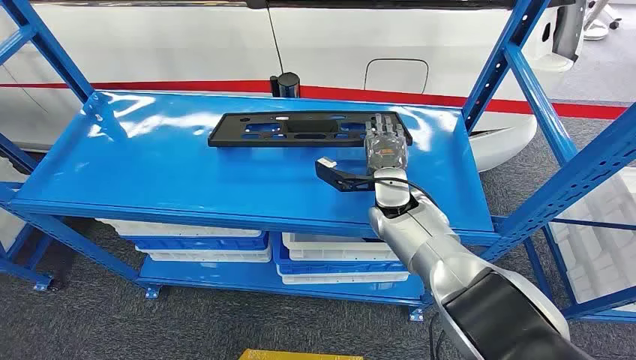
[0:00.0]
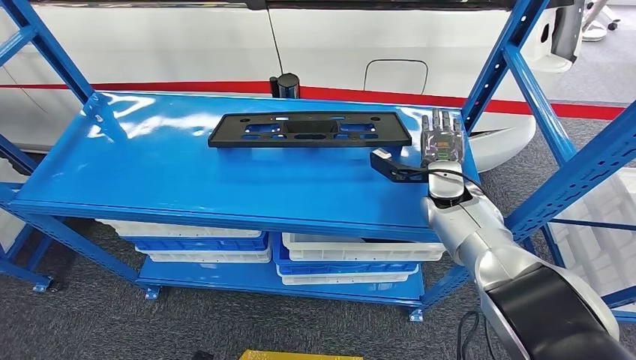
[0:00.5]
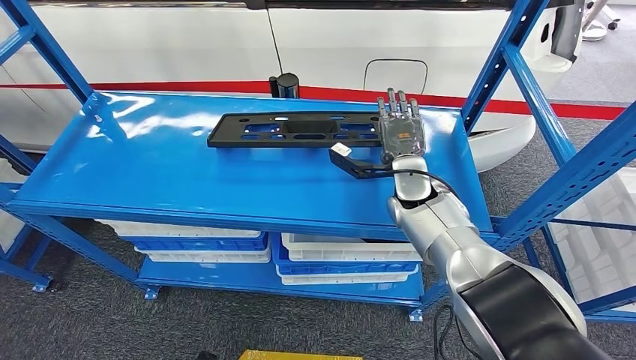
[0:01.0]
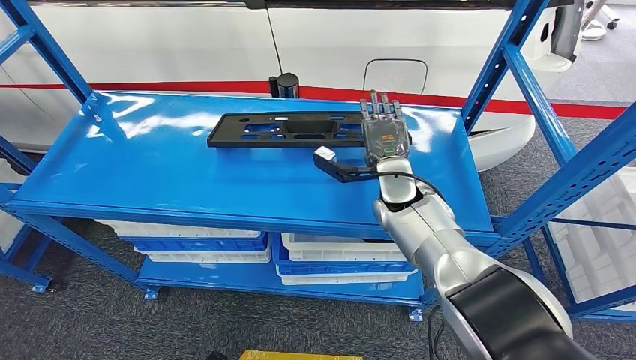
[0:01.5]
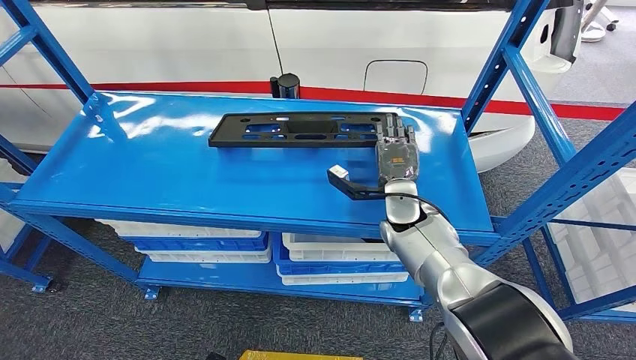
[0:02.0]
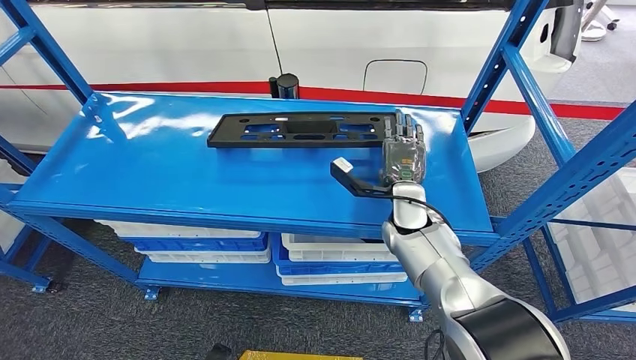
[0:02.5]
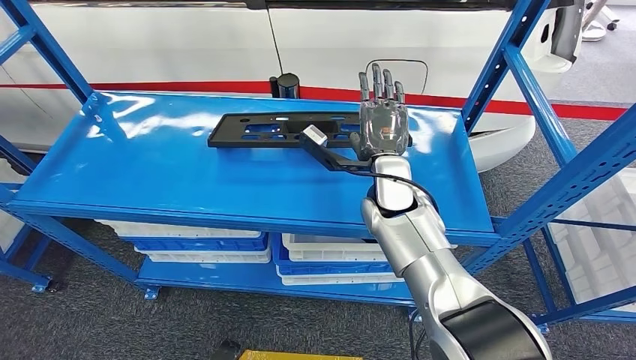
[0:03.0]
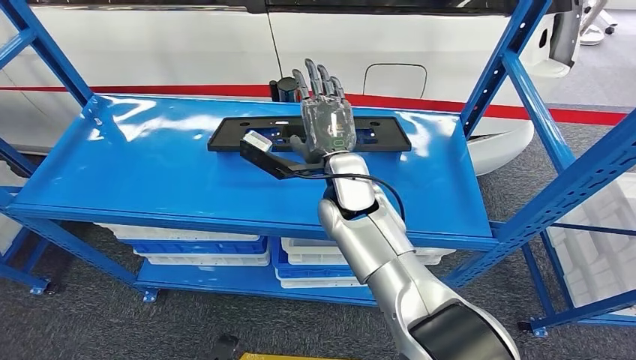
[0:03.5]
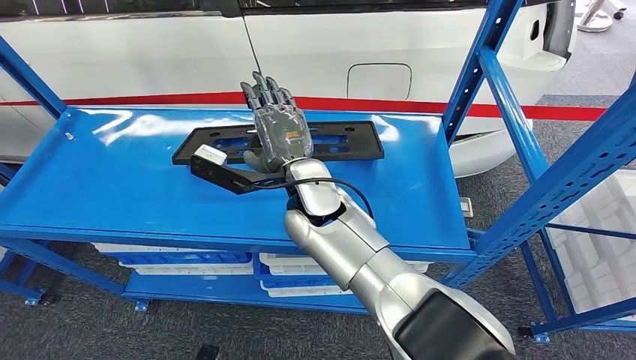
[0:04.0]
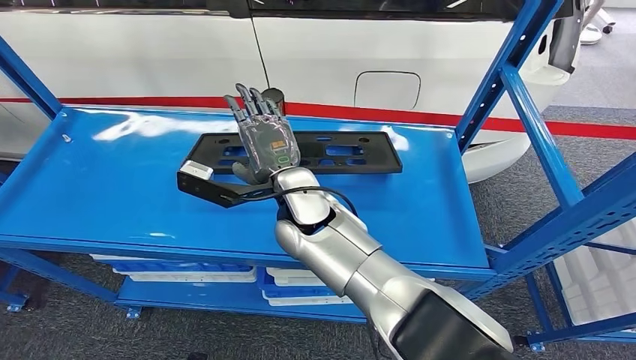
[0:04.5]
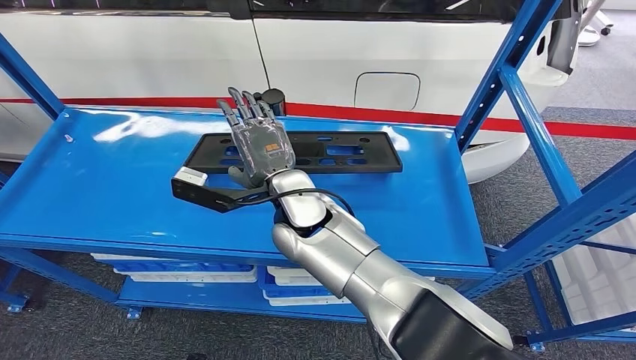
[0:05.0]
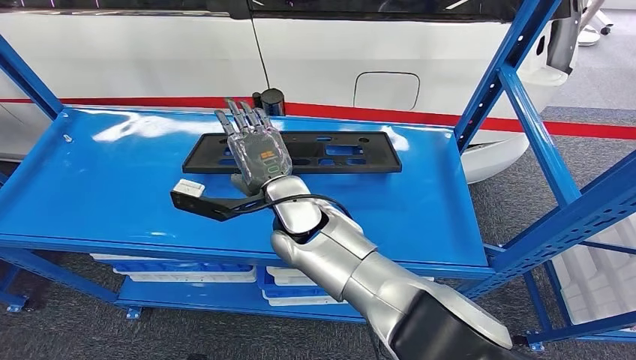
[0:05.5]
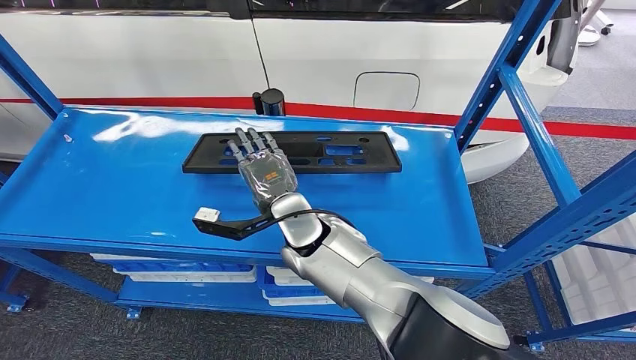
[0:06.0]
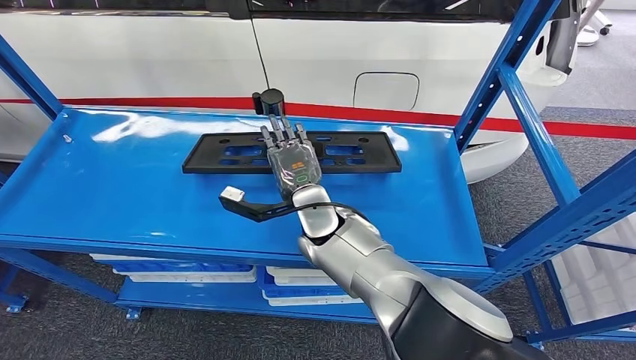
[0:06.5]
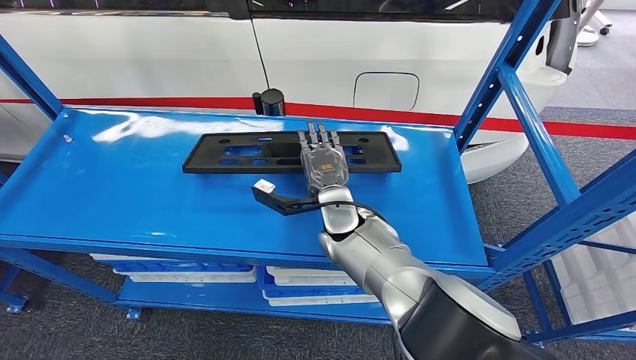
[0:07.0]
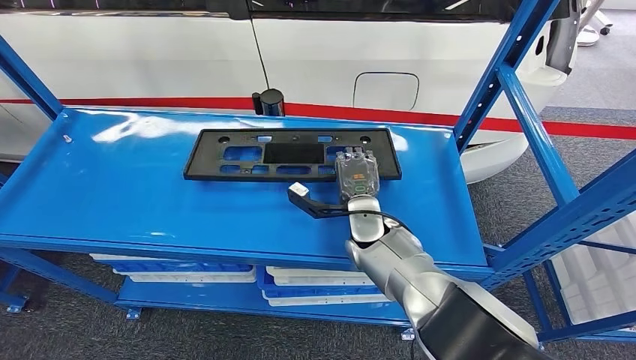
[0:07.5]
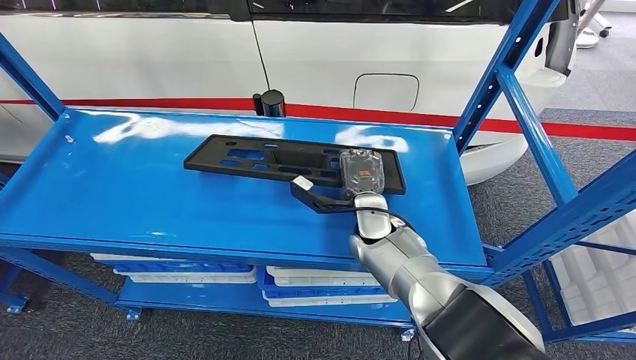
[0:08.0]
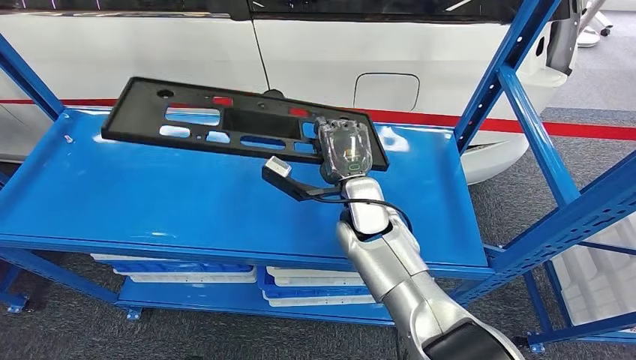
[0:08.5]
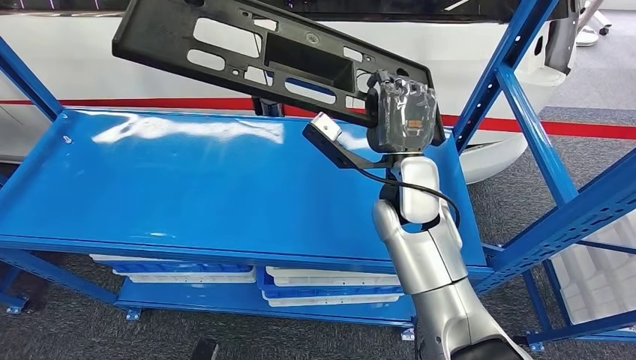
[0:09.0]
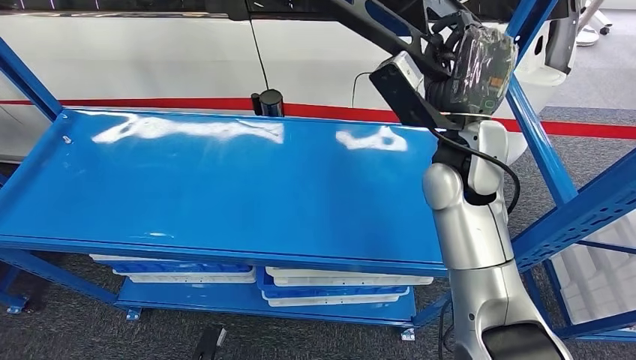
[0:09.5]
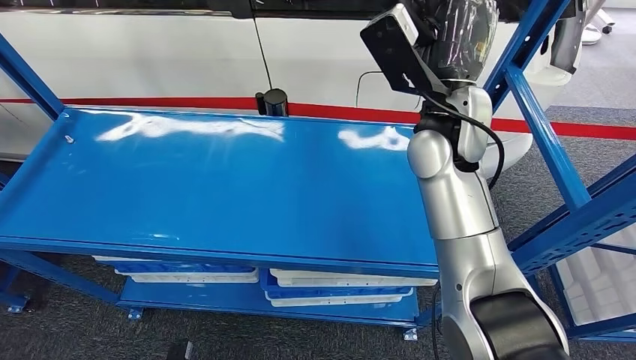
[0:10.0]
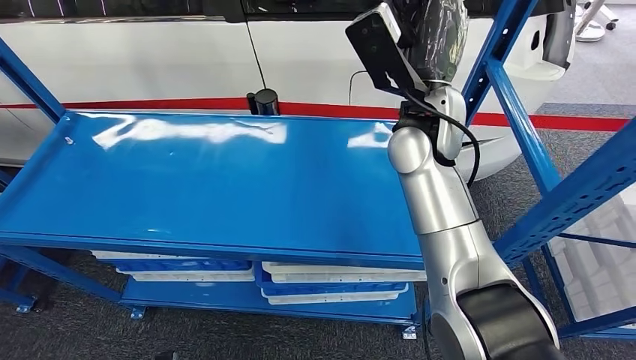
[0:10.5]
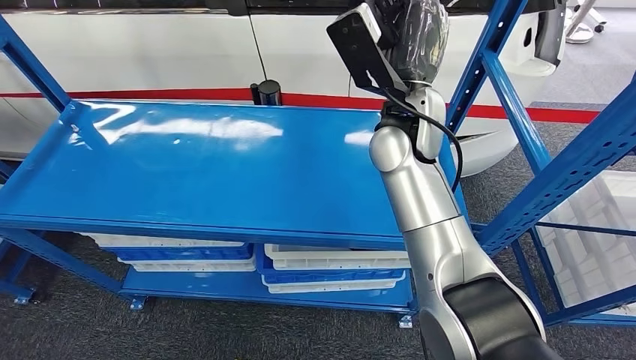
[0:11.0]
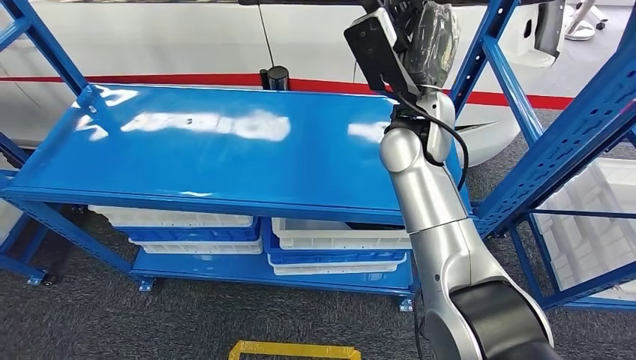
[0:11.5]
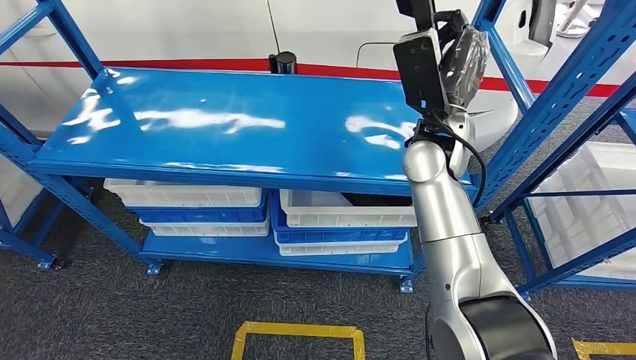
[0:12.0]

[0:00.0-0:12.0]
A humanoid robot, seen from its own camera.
Step, 0:00.0 to 0:08.5: Pick up the large material from the shelf.

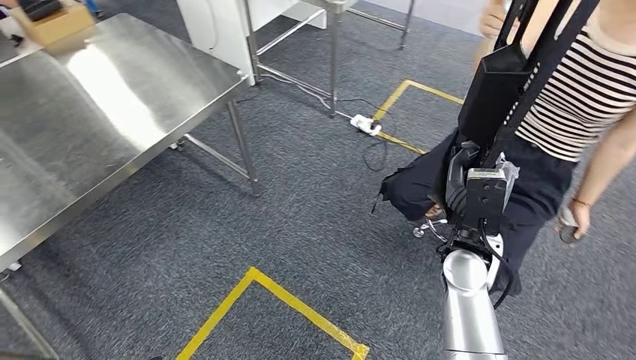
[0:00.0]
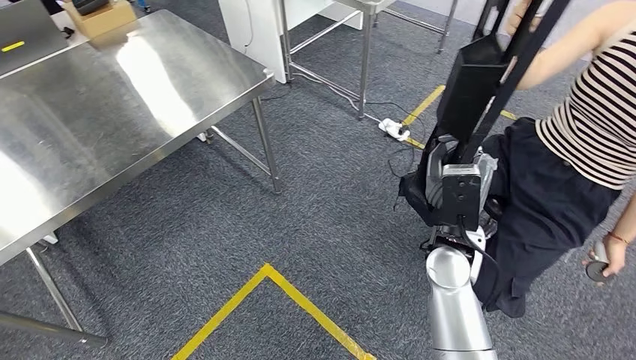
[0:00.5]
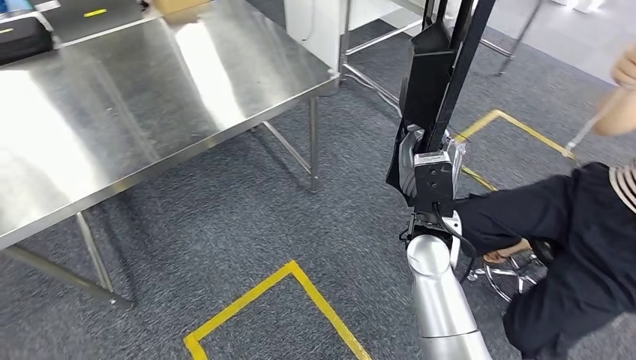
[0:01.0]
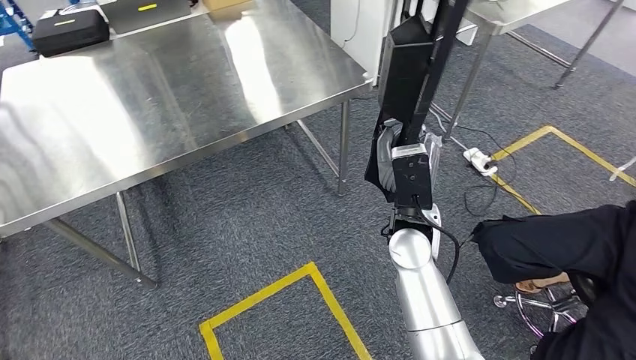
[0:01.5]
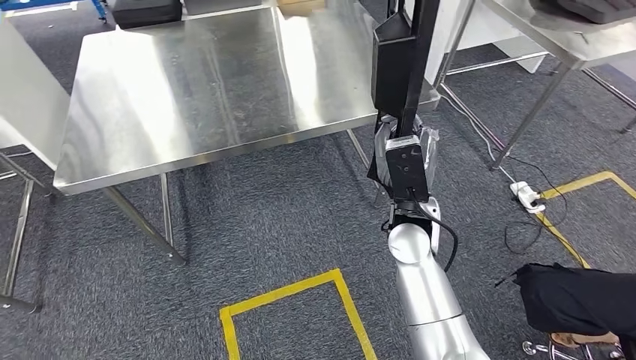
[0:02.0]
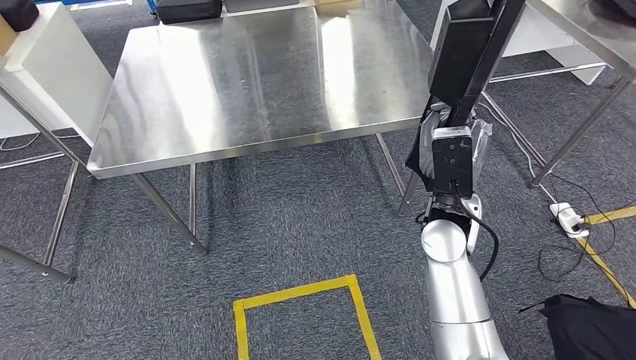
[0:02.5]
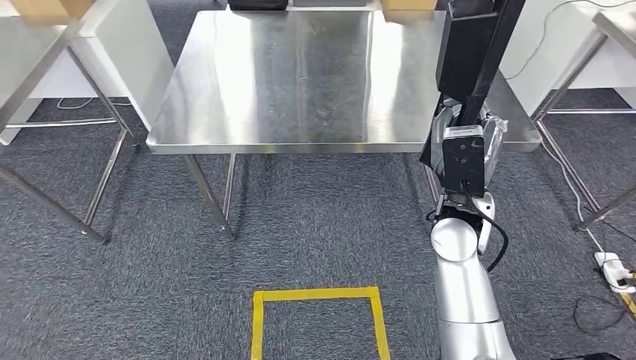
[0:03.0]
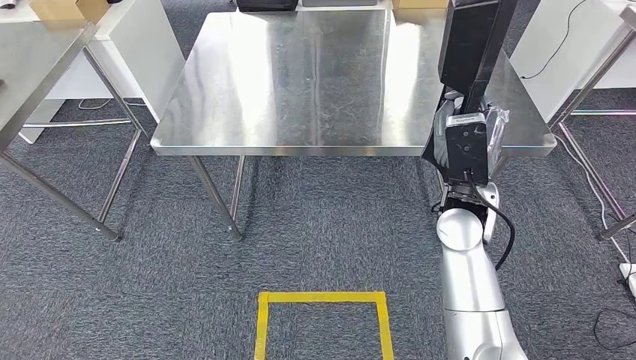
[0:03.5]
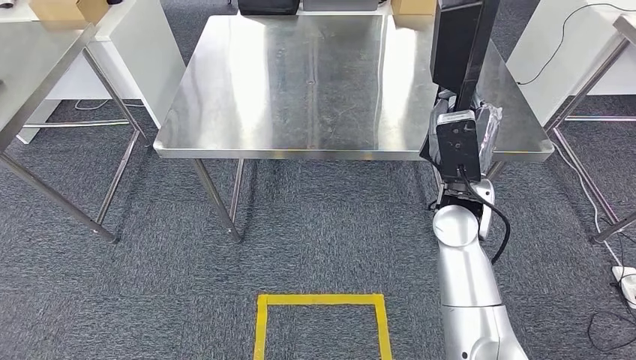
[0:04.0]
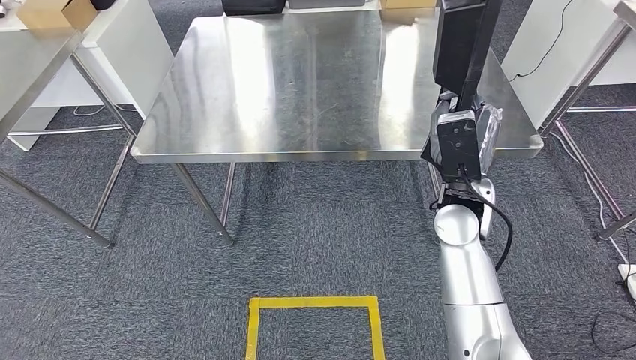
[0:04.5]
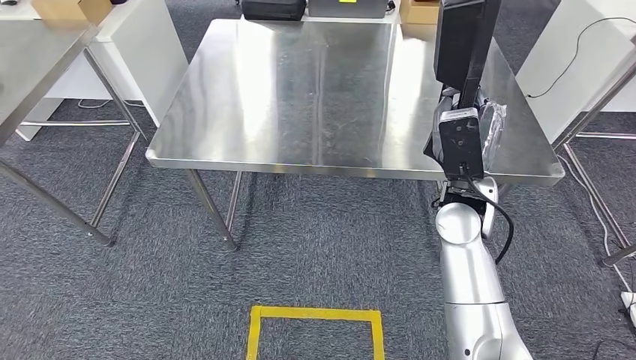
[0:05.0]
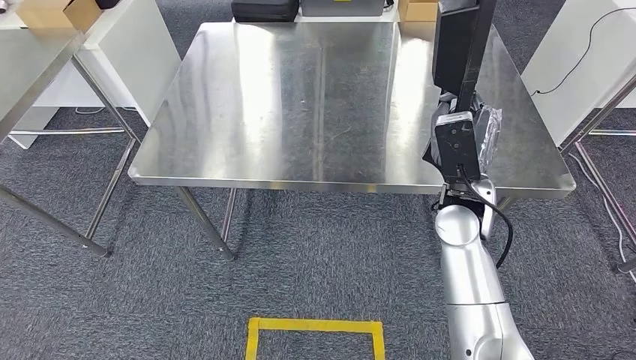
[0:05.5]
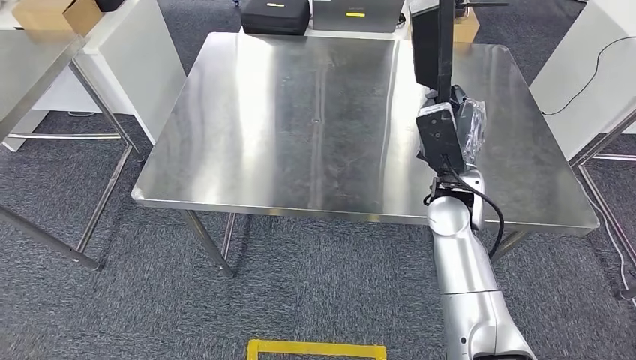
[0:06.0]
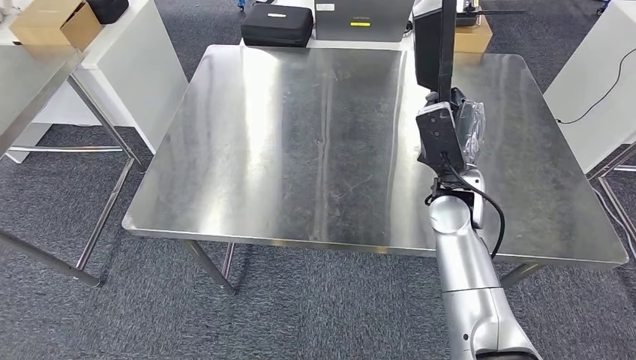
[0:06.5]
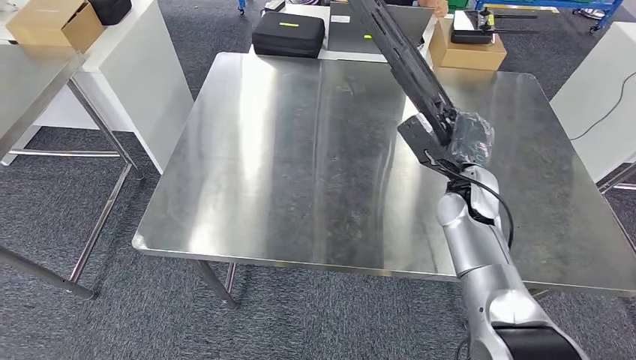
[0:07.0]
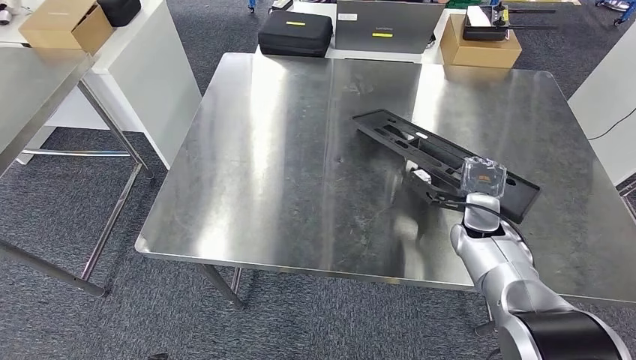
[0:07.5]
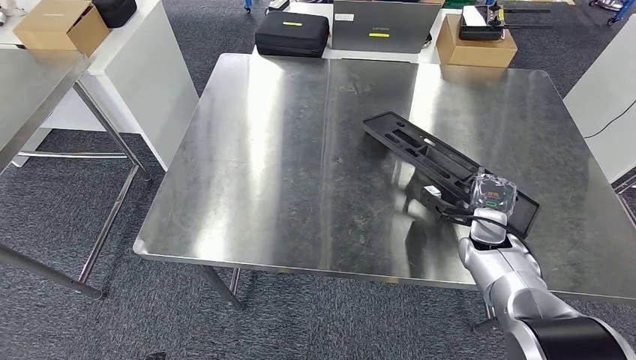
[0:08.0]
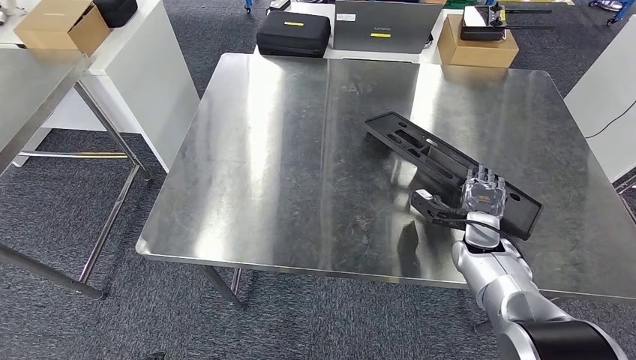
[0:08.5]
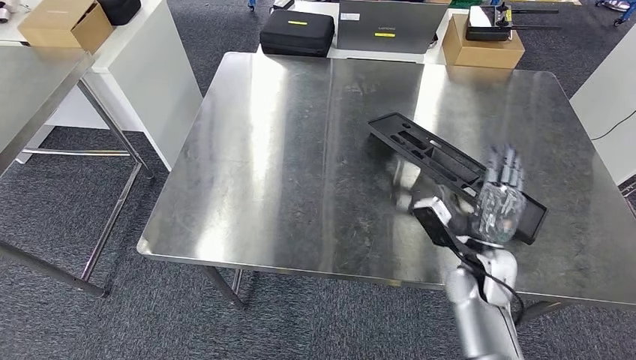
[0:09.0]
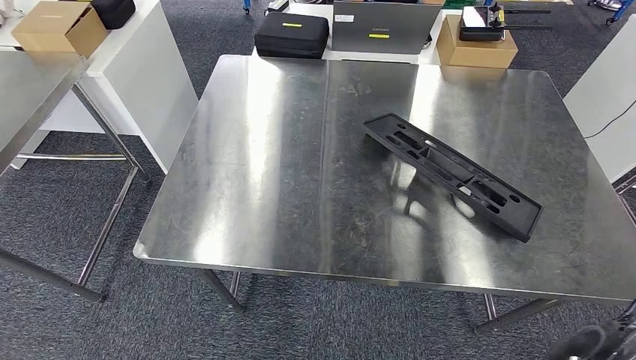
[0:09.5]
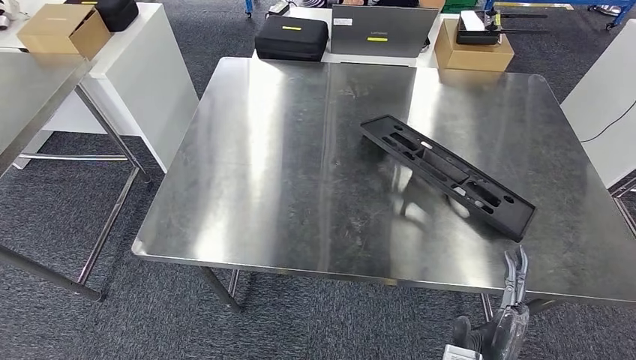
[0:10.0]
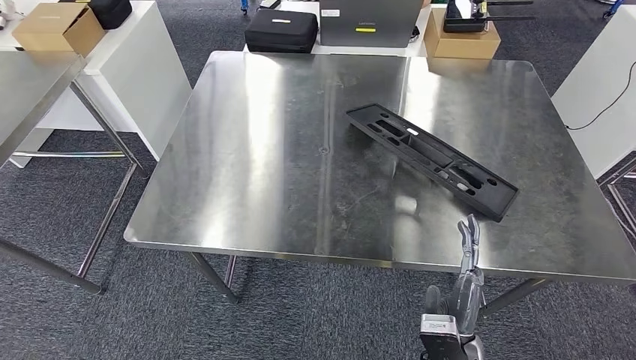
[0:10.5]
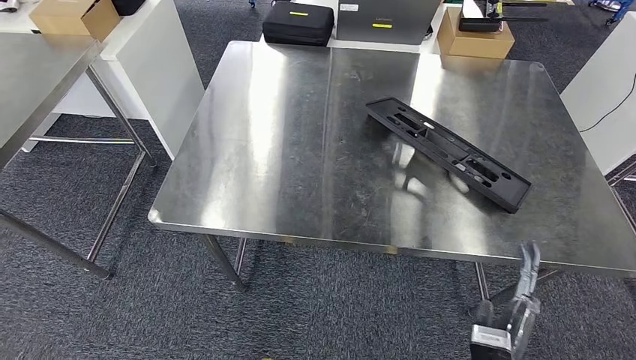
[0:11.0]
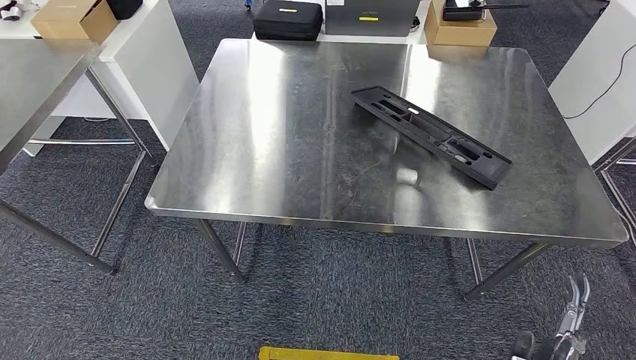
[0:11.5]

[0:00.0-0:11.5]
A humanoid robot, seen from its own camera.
Step, 0:00.0 to 0:02.0: Move the large material to the workbench.
Step, 0:02.5 to 0:09.5: Insert the large material into the corresponding slot on the workbench.
